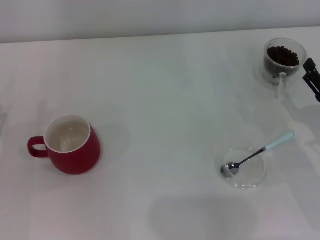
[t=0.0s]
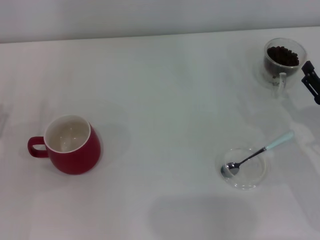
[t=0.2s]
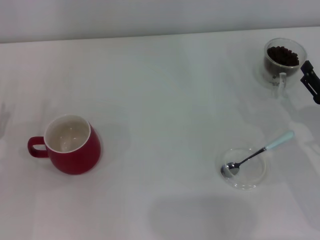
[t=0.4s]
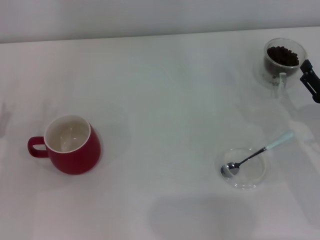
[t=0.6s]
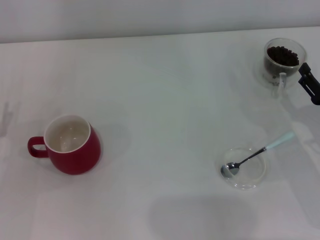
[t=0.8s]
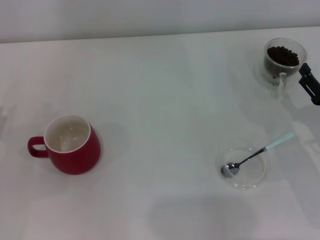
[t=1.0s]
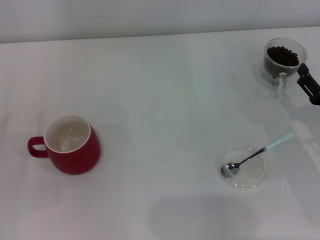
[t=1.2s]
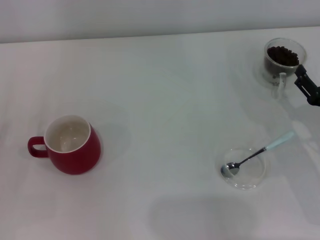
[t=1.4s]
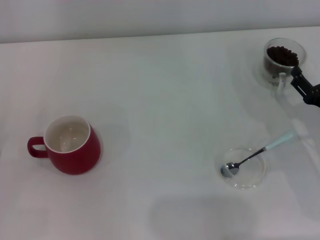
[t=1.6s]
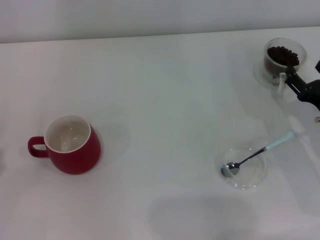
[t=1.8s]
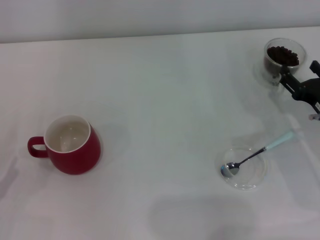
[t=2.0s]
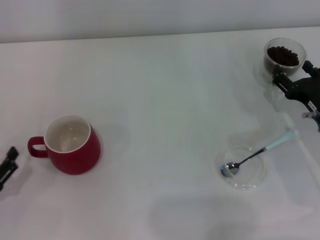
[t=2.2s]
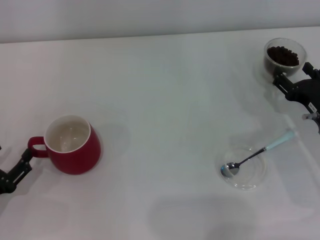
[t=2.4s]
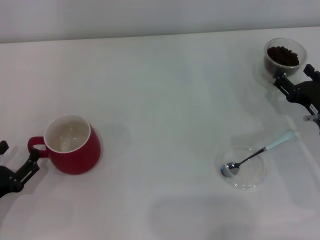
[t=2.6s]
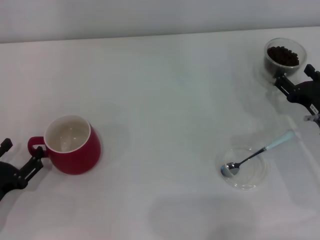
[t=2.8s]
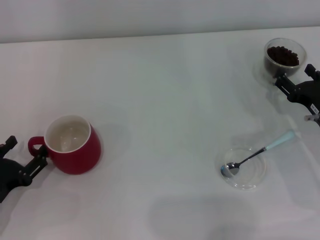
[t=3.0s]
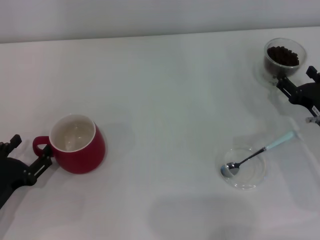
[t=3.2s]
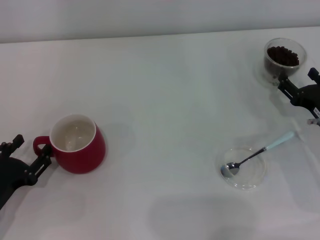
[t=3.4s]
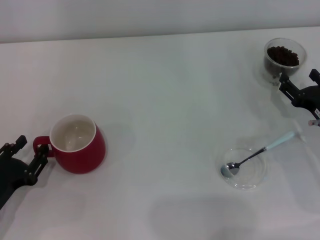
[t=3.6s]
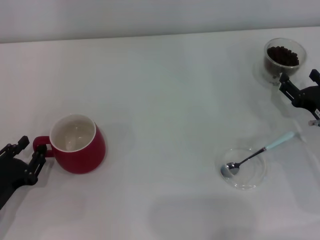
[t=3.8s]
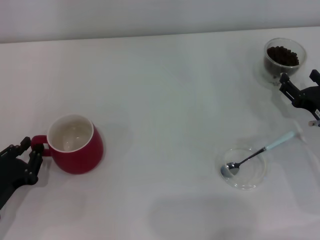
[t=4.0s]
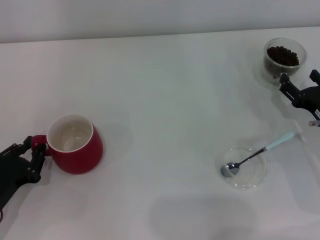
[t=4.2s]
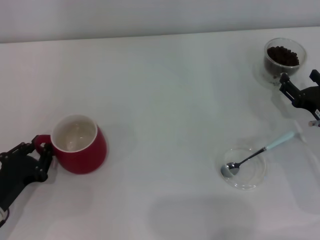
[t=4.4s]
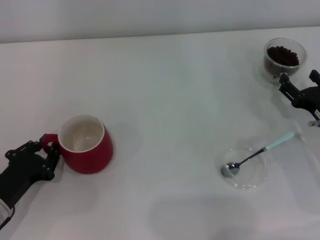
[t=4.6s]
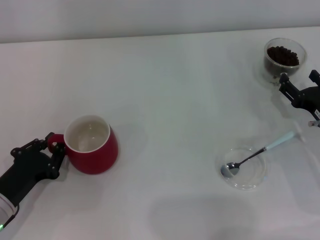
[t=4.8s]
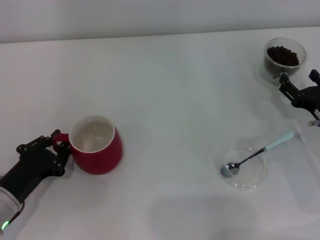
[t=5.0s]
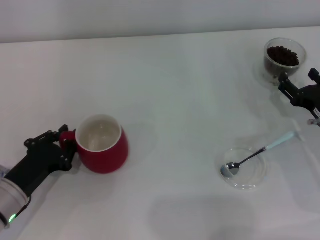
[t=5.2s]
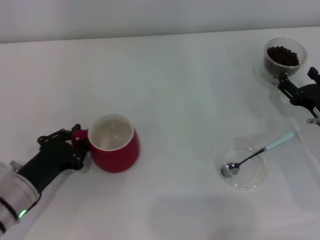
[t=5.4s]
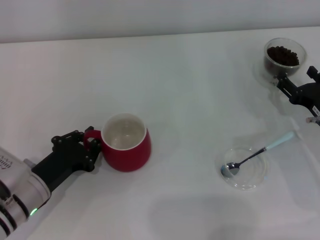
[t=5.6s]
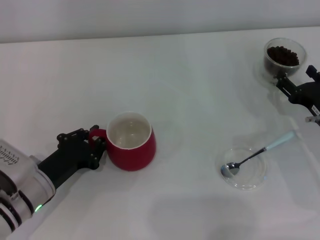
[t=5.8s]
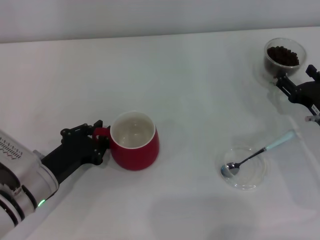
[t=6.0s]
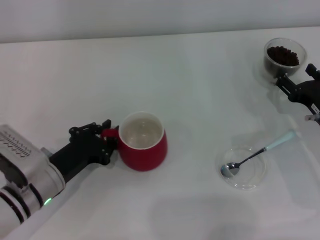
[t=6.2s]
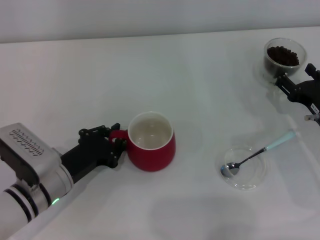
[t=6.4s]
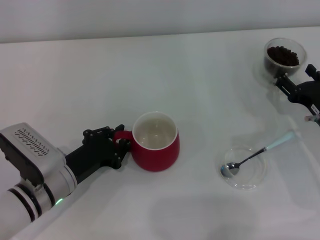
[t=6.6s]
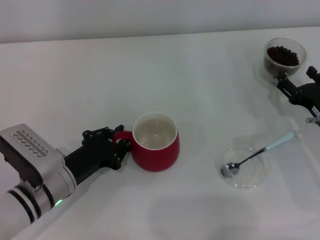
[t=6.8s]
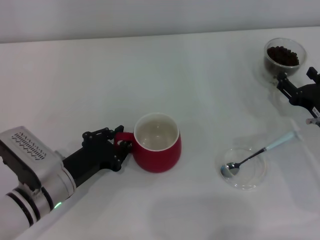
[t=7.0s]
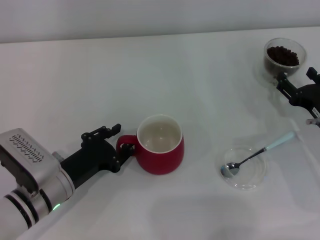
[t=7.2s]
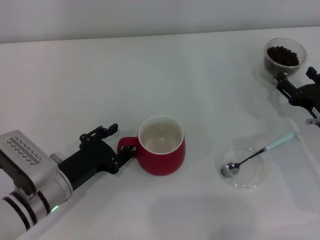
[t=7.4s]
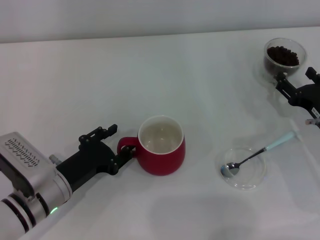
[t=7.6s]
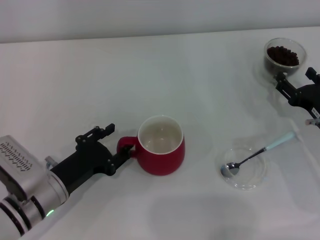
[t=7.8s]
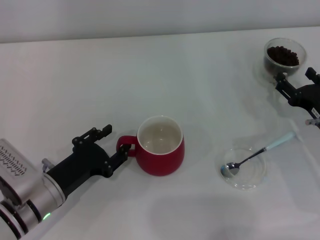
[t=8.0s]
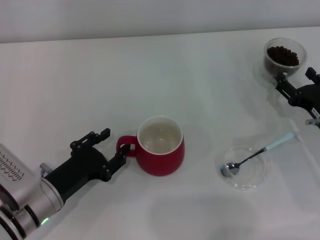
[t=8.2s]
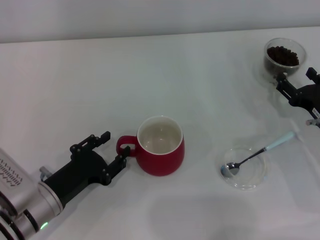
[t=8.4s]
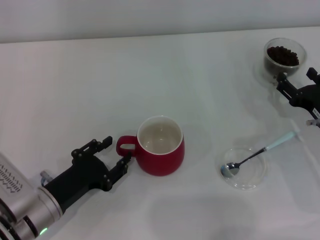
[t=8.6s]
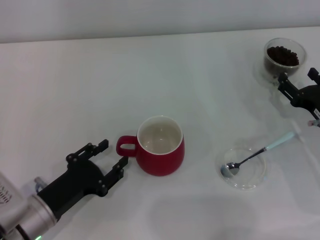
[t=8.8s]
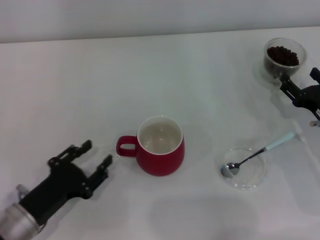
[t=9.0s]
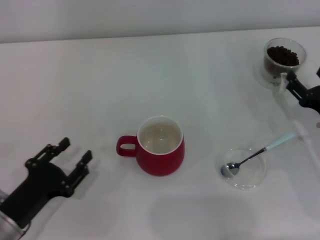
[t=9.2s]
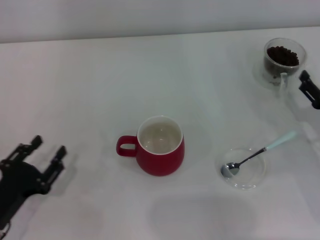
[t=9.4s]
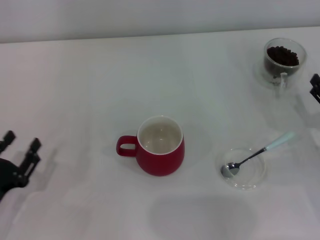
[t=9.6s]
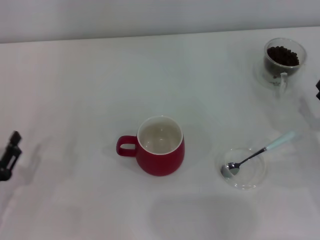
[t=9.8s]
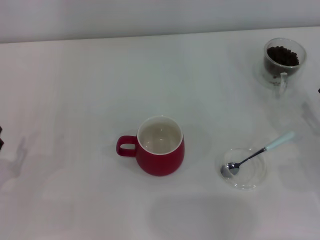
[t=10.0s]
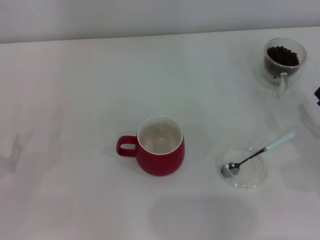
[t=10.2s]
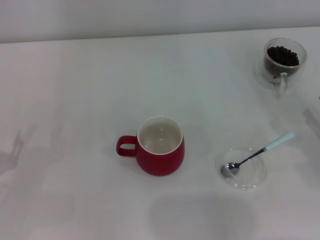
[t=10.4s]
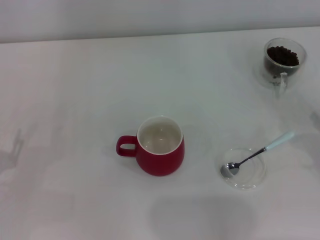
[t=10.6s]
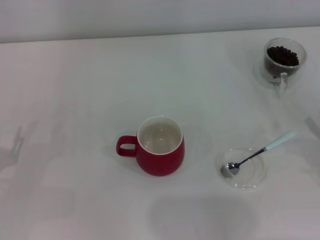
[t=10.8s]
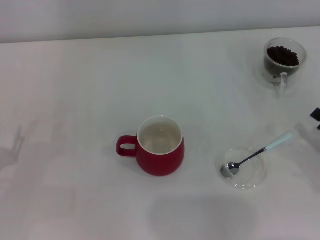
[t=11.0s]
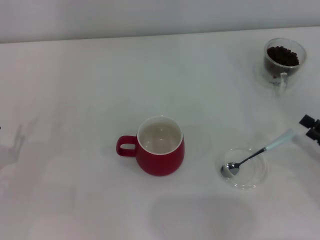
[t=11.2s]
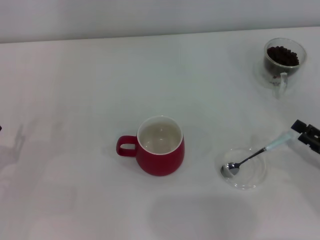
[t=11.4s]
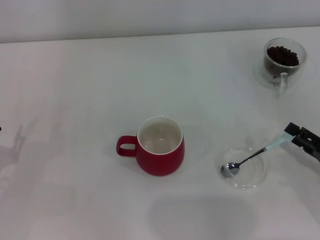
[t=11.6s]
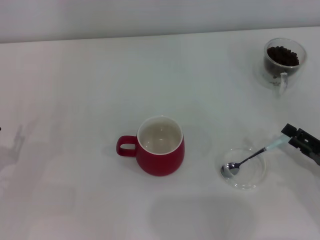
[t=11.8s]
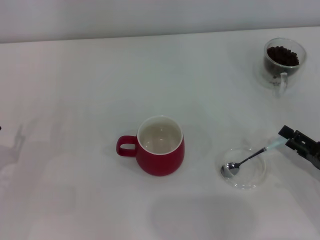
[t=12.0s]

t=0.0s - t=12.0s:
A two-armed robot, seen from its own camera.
Task of the whole recording: Use a blue spoon to take out the coffee beans from the glass and pour them into the red cup.
Step, t=0.0s - t=8.8s: Move the cup to the center of view with the left gripper.
t=1.6s - t=3.0s: The left gripper is displaced to the right by some 5 cm.
t=3.0s - t=4.4s: The left gripper closes its fingers.
t=4.4s - t=6.0s: The left gripper heads to the right, covering roughly 5 cm.
t=6.0s - t=7.6s: The left gripper opens its fingers.
t=7.6s - t=9.0s: The left gripper moves backward, roughly 5 cm.
t=9.0s - t=10.4s: The right gripper is displaced backward and to the right by some 10 cm; the left gripper heads to the left, covering approximately 10 cm.

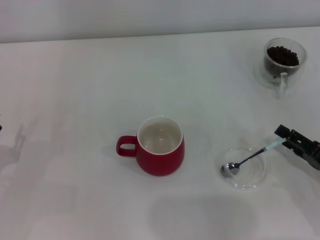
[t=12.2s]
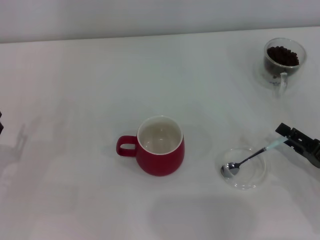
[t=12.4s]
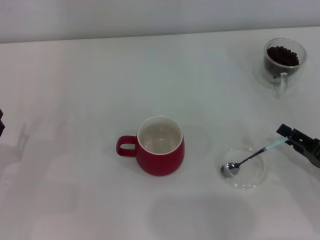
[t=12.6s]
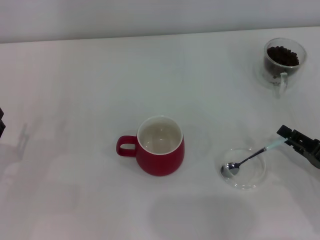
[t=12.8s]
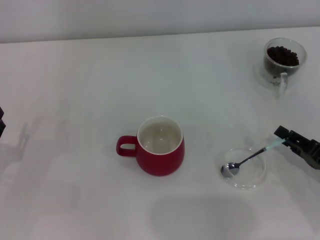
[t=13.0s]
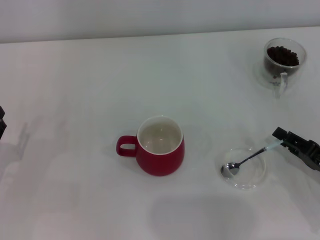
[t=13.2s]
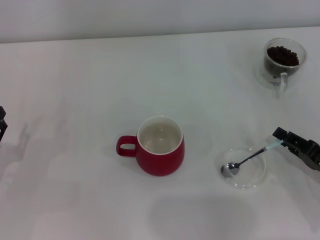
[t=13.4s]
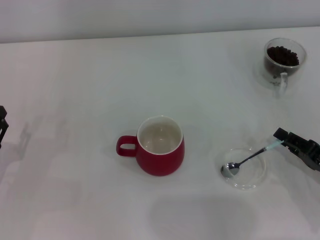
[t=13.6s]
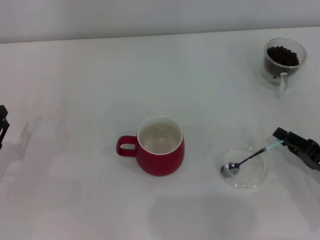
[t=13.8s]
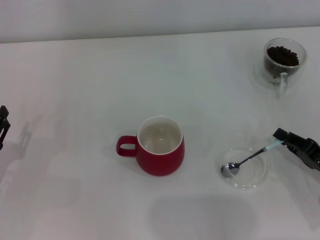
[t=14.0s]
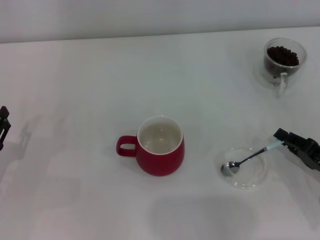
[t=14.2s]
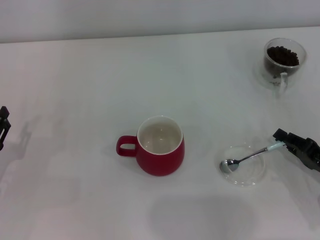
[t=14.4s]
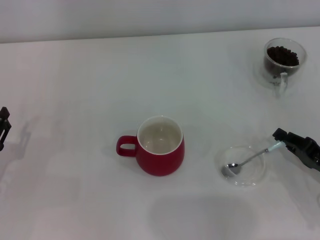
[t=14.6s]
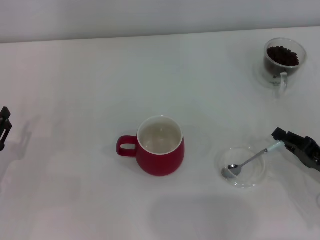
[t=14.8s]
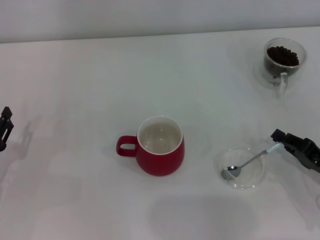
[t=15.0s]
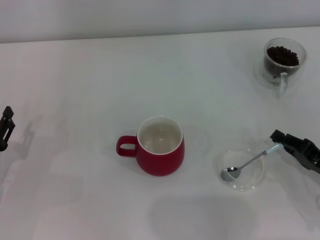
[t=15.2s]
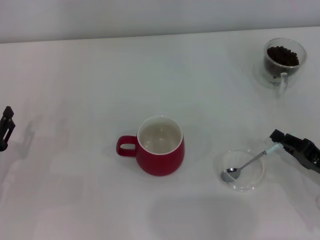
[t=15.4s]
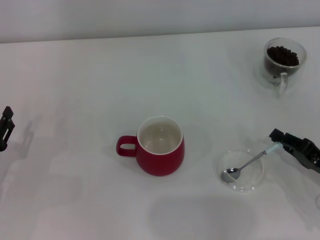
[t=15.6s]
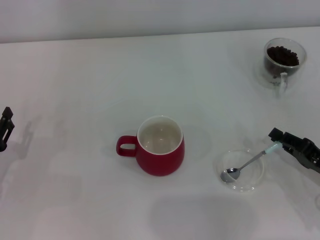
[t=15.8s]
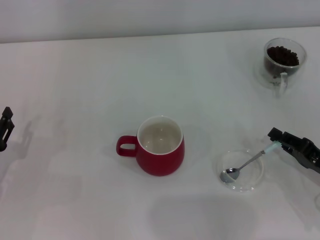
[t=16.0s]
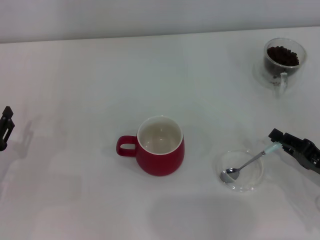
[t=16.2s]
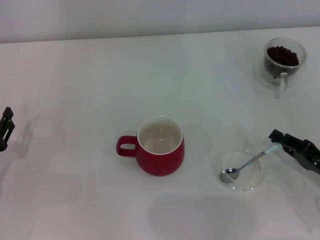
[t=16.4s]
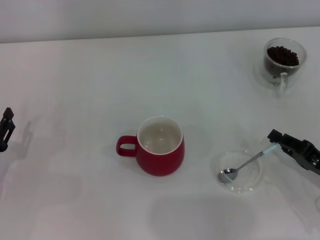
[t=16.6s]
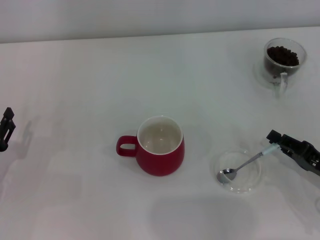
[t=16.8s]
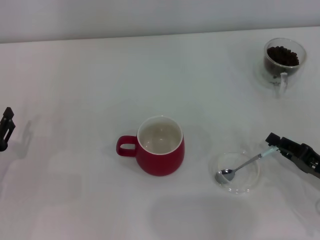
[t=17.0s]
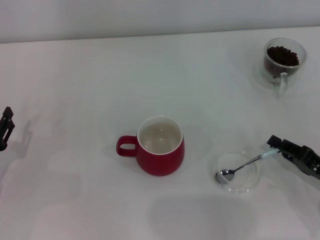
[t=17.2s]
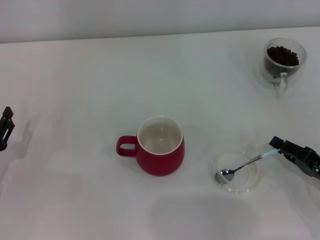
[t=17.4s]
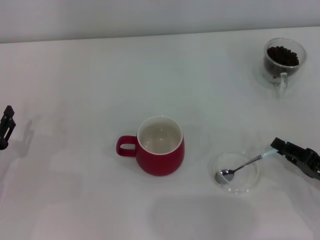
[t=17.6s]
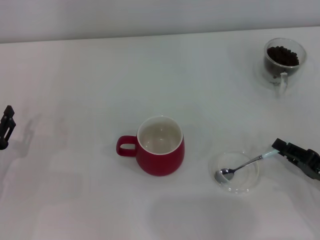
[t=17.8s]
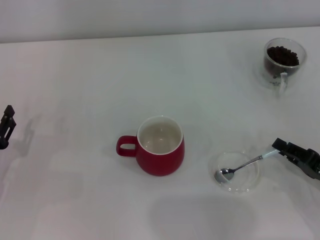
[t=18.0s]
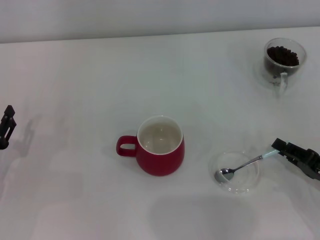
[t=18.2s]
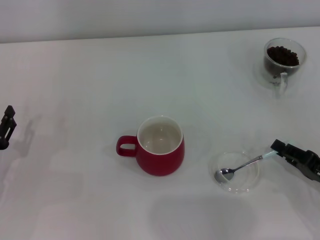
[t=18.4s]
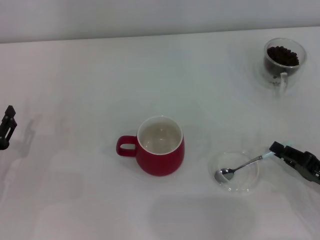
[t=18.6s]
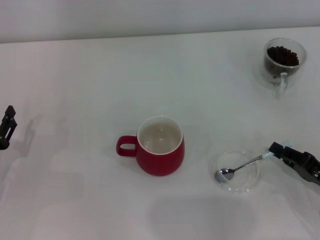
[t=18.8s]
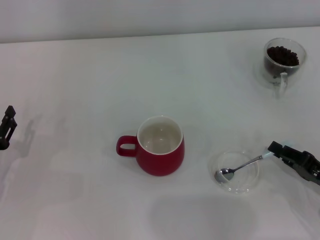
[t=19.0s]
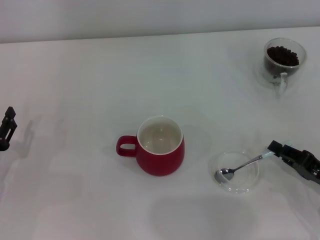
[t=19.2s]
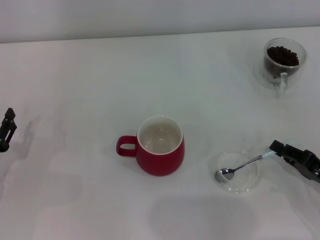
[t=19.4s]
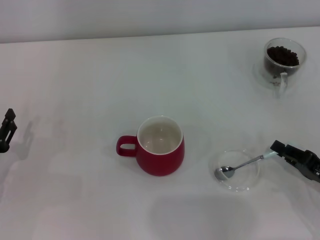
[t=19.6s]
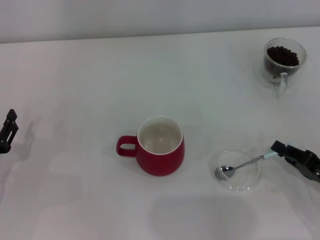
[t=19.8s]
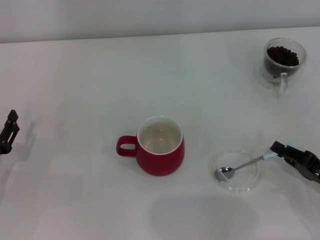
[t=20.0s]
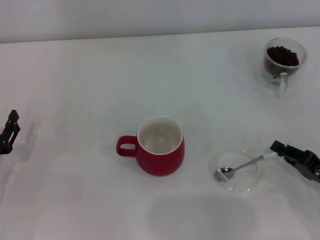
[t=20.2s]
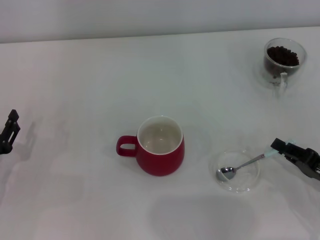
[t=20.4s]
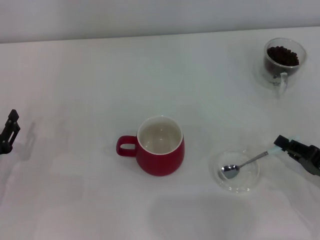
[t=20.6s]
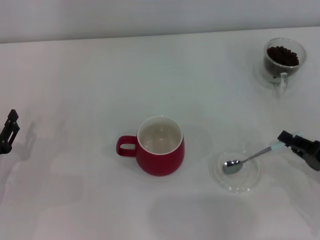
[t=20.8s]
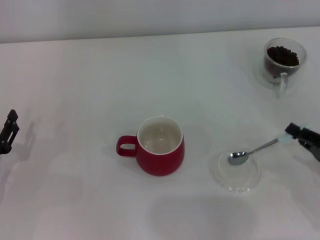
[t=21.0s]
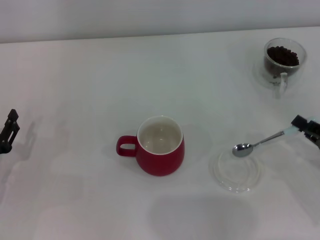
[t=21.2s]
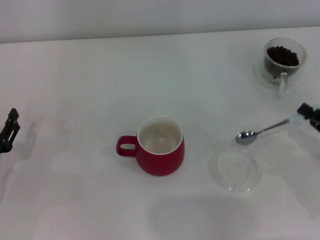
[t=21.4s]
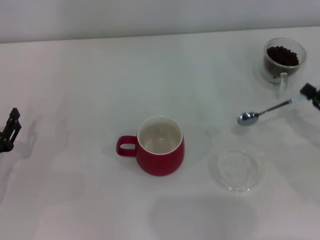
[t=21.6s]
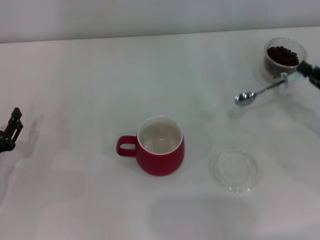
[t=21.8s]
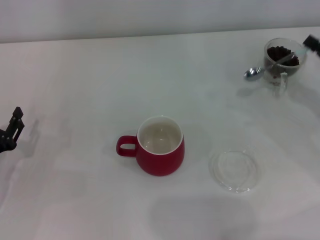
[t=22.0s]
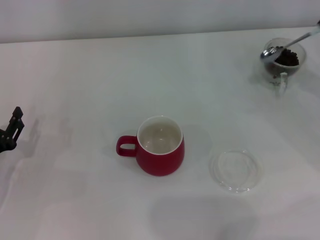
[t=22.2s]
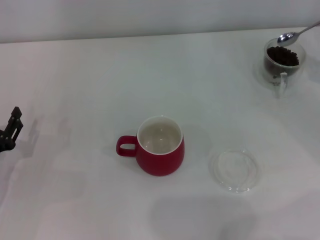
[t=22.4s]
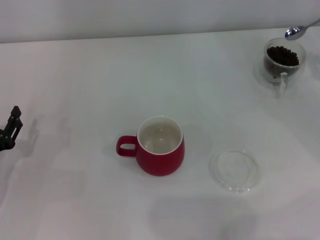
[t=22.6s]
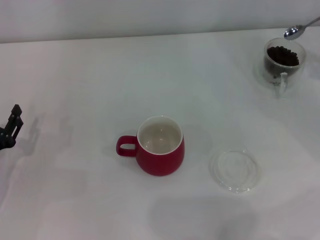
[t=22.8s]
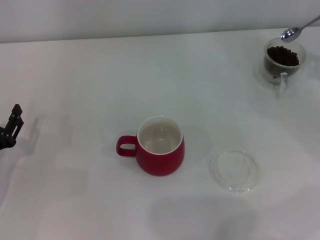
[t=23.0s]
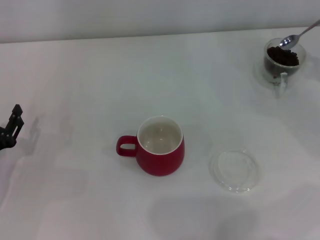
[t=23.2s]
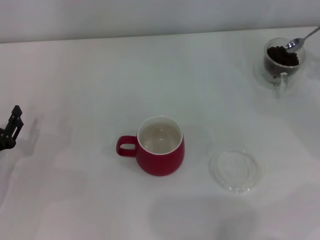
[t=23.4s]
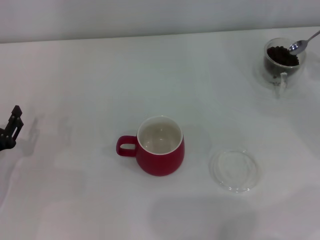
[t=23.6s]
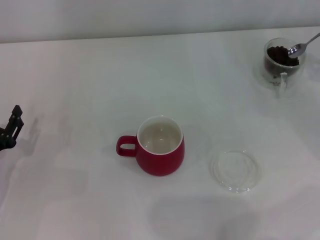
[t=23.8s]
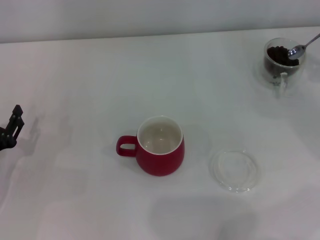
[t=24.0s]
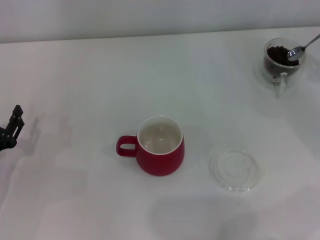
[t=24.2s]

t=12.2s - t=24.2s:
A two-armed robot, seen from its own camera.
Task of the whole recording: Use a blue spoon to take out the coffee beans from the glass and pour them into the red cup.
Step, t=12.2s - t=21.0s: Pick up the spoon with the right gripper.
t=13.8s - t=19.8s: Both grippers stay put.
t=19.8s - t=21.2s: There are only small adjustments of the grippers.
t=21.2s - t=22.6s: The right gripper goes roughly 15 cm forward, upward and to the right.
t=22.6s - t=24.2s: The grippers stay close to where they were, moving slightly.
